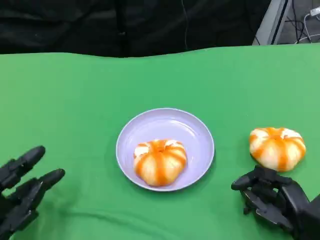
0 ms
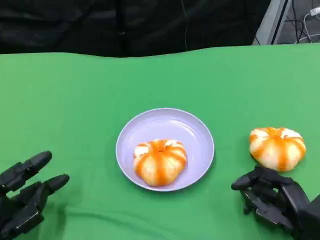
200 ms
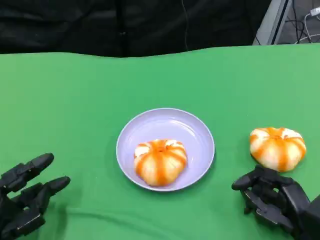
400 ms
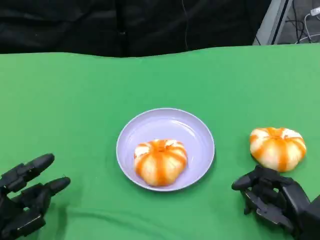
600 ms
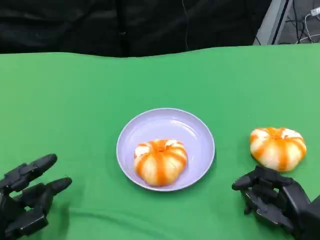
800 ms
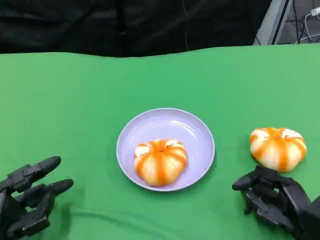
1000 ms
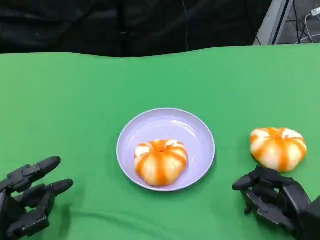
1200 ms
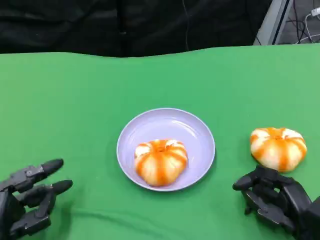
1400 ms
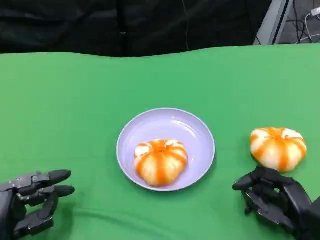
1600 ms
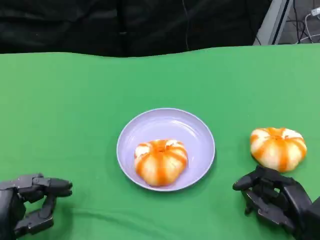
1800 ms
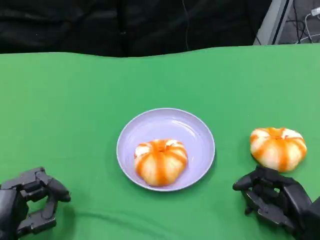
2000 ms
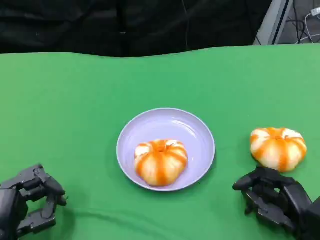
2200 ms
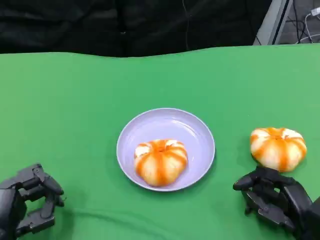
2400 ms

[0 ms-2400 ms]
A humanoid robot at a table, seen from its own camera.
Task of the whole recording: Grasp the bread from the table and place it into the plate.
0 ms to 2400 ms: The hands stay close to where they were, moving slightly.

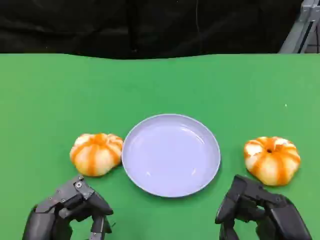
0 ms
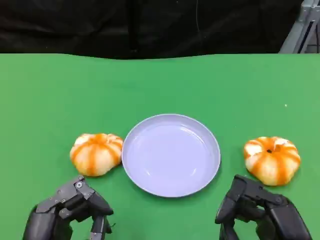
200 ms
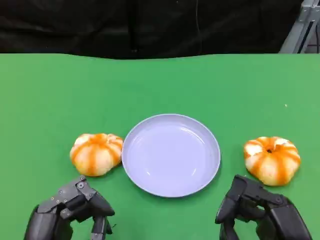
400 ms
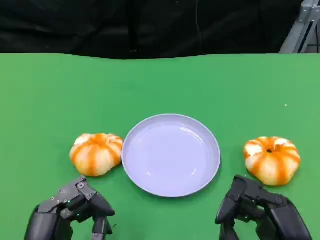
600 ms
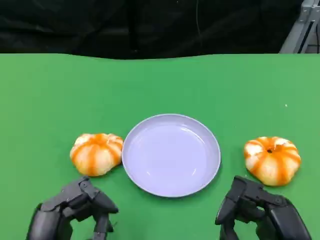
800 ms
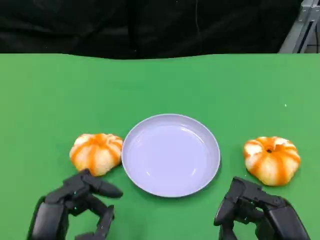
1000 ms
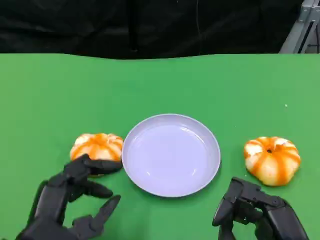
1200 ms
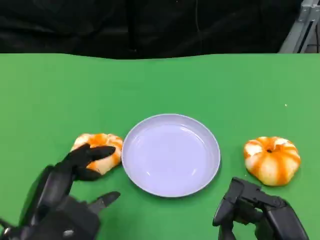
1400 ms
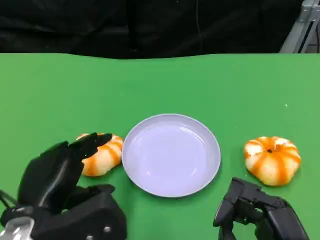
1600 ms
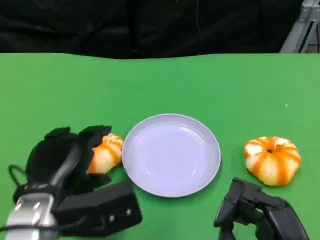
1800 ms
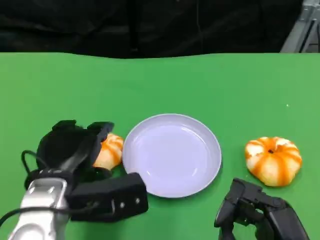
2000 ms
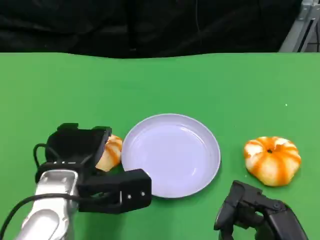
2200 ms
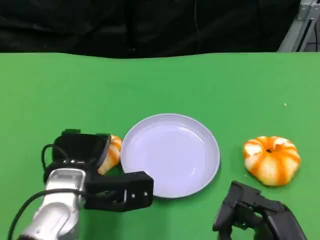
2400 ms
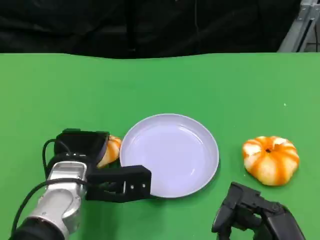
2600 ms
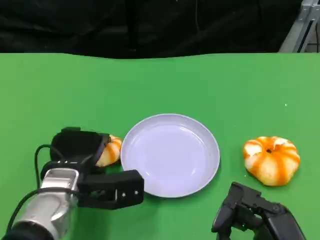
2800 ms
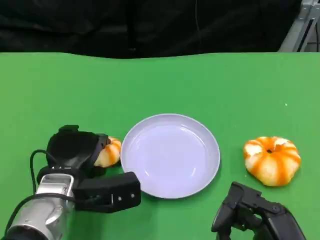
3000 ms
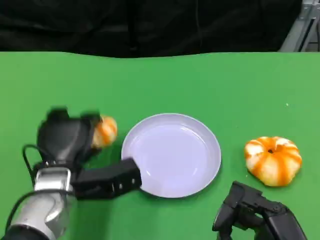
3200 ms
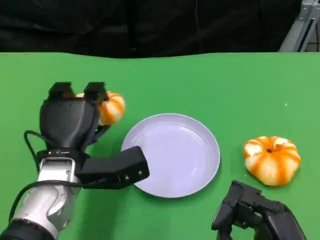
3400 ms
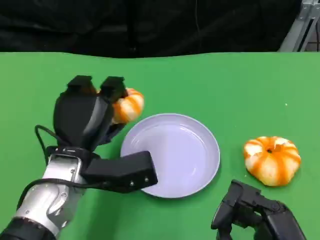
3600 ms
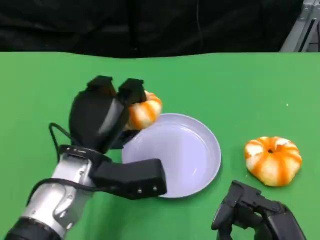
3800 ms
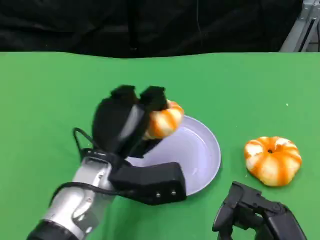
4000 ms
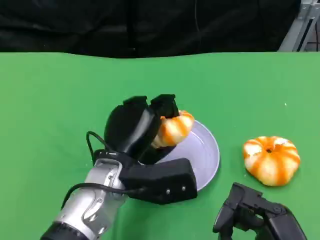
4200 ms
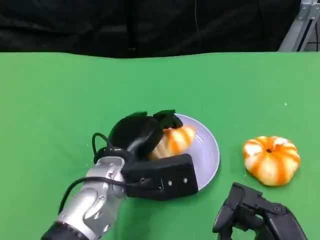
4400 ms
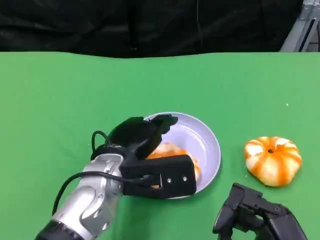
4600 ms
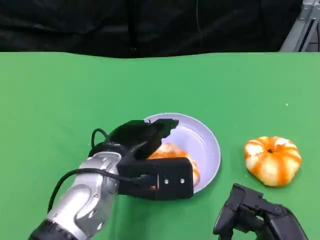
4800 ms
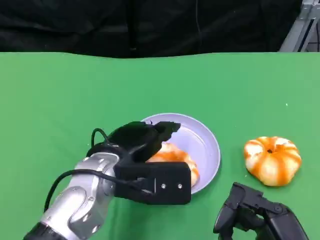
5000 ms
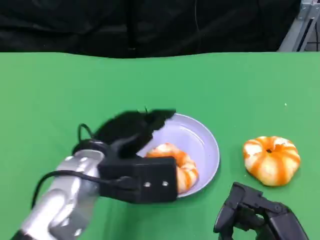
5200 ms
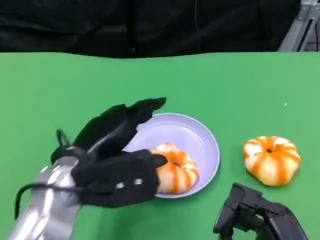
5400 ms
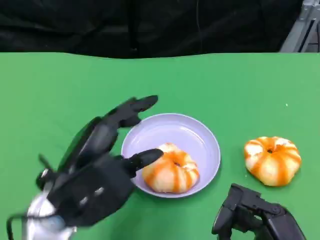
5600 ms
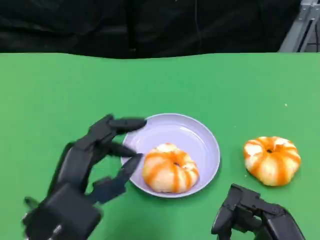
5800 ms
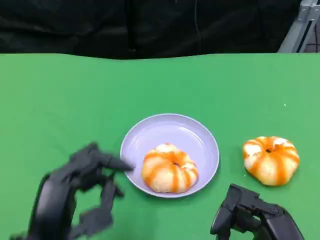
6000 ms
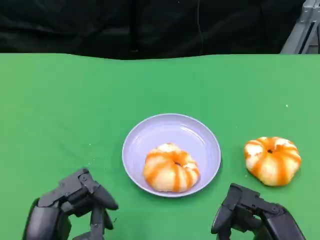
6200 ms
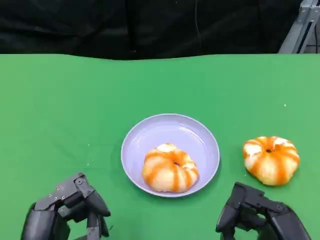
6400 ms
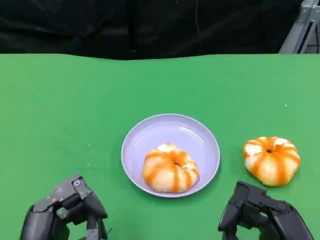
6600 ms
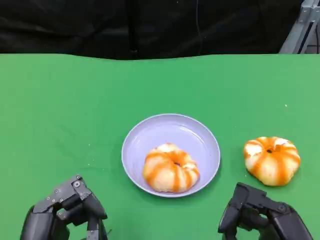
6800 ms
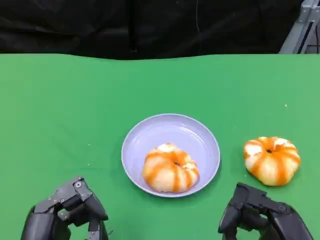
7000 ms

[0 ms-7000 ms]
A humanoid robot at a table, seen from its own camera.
Task of the whole recording: Grasp the bread from the table and place it into the plate.
0 ms to 1400 ms: The left hand shifts by about 5 cm.
1400 ms to 2800 ms: The left hand is displaced forward and downward by approximately 10 cm.
2800 ms to 4200 ms: The left hand is displaced to the right by about 10 cm.
4200 ms to 5600 ms: The left hand shifts some 10 cm to the left and backward.
5600 ms to 7000 ms: The left hand heads backward and downward, covering some 10 cm.

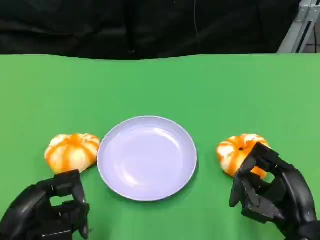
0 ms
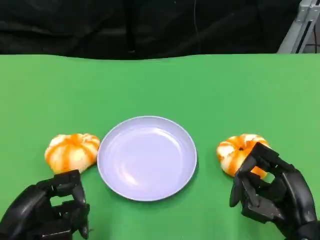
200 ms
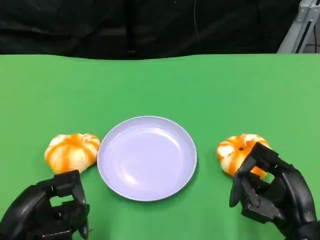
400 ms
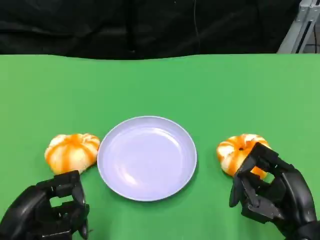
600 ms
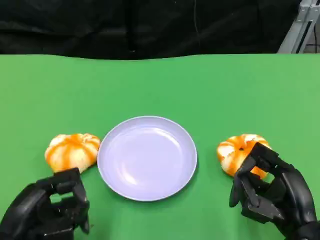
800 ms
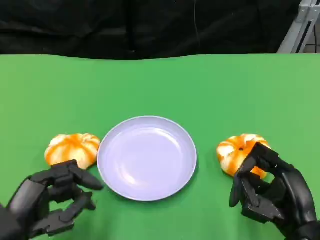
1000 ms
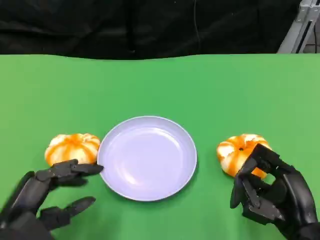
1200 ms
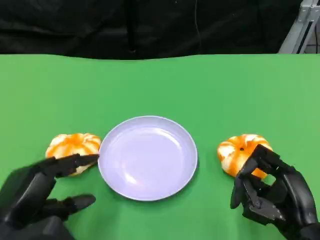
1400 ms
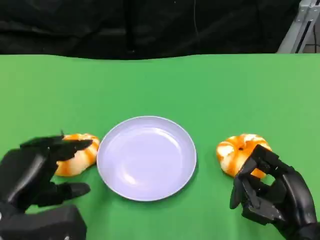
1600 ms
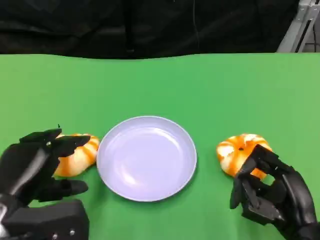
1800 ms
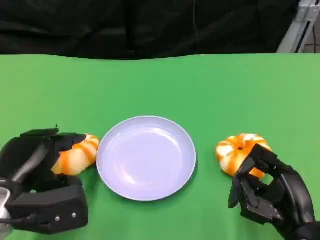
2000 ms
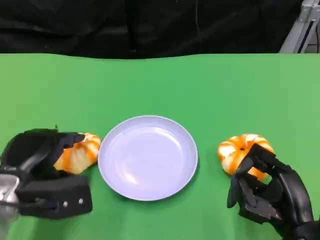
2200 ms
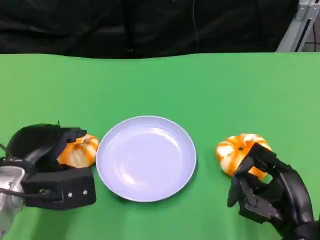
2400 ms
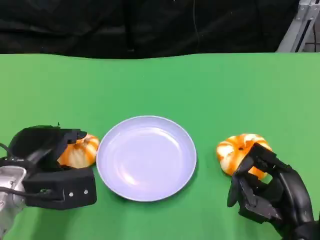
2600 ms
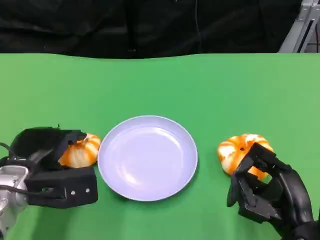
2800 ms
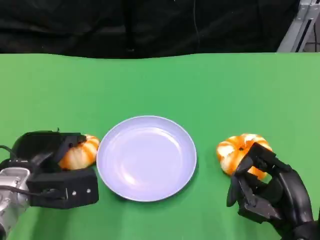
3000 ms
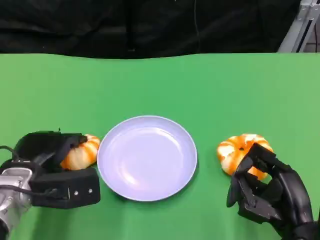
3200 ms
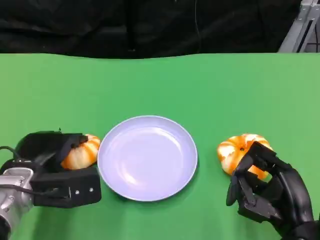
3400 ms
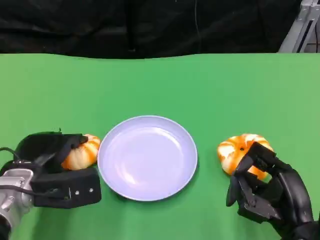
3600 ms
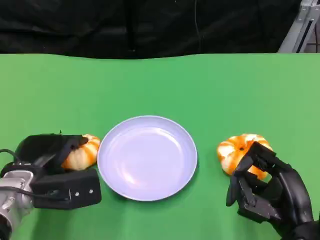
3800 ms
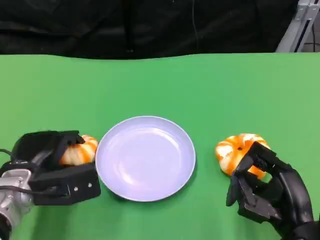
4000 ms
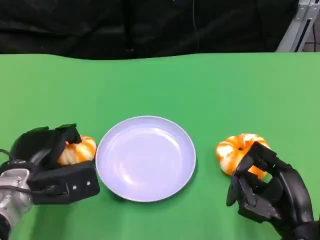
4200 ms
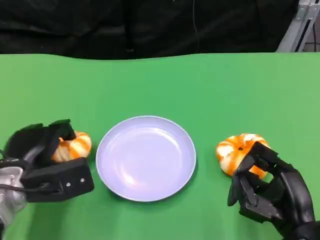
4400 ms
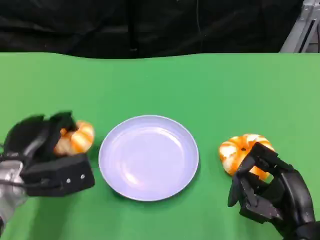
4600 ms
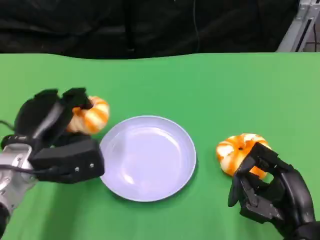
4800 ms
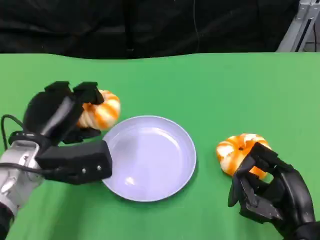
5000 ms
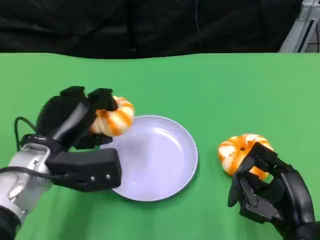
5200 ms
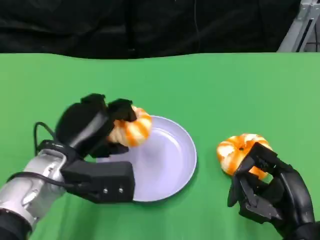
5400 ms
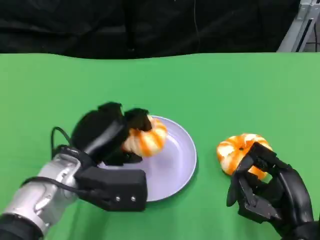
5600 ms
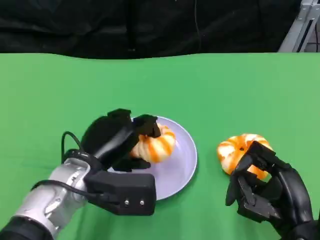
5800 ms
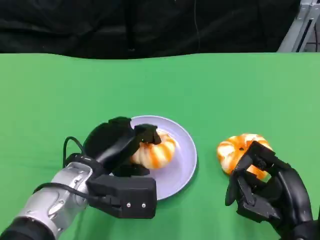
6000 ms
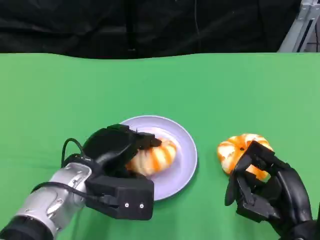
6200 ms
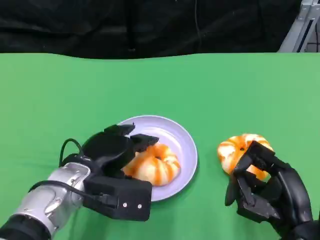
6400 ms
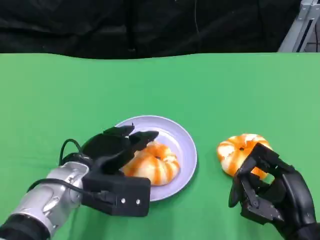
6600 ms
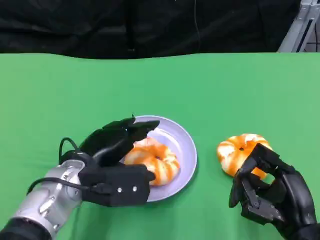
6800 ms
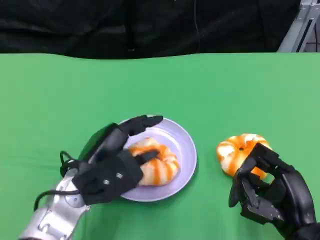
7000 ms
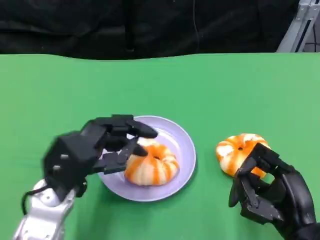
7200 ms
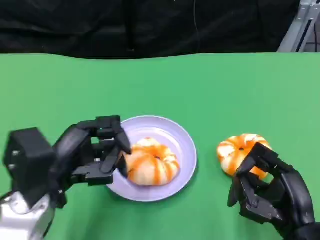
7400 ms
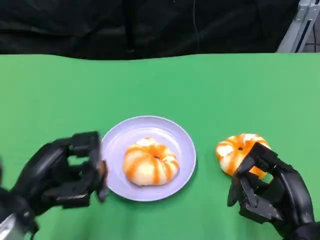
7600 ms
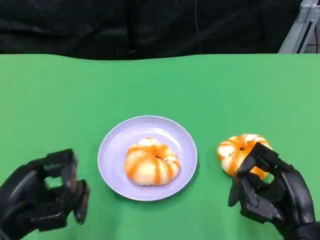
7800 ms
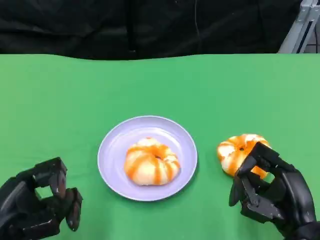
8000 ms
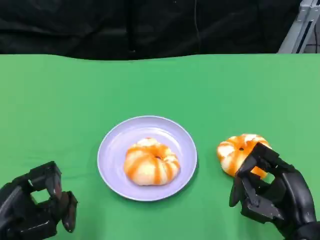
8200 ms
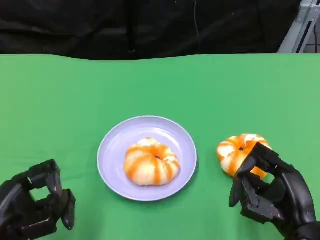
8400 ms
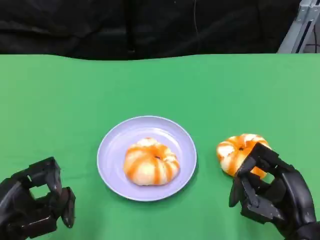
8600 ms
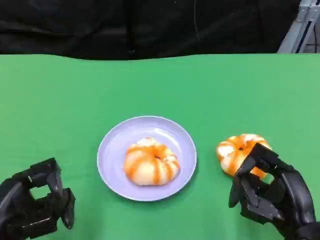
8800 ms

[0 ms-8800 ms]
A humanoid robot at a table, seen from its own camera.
Task of the whole recording: Grasp the bread from the table and place it into the plate.
1400 ms to 3000 ms: The left hand is displaced forward by about 10 cm.
3000 ms to 4400 ms: The hands make only small movements.
4400 ms to 5800 ms: The left hand travels to the right by some 10 cm.
5800 ms to 7400 ms: The left hand moves to the left, some 5 cm.
7400 ms to 8800 ms: The left hand heads backward and to the left, covering some 10 cm.

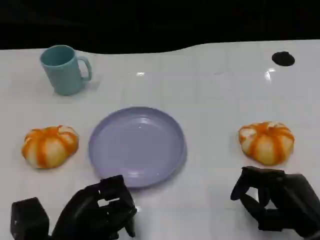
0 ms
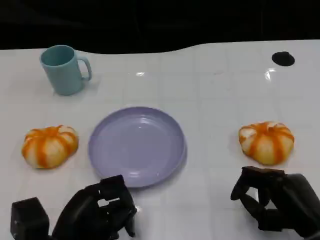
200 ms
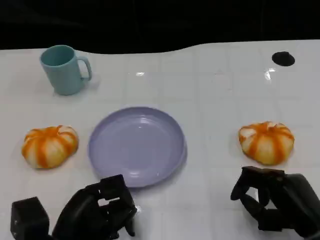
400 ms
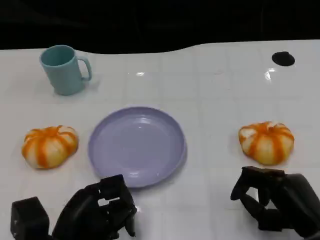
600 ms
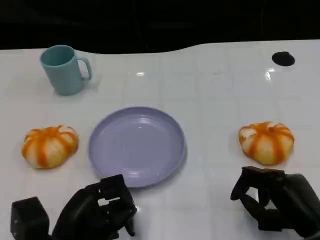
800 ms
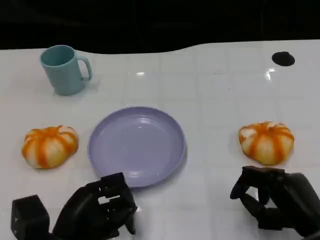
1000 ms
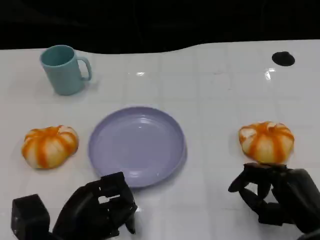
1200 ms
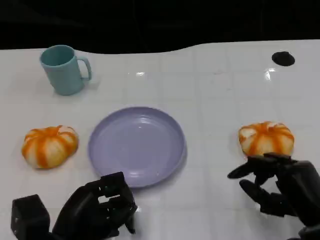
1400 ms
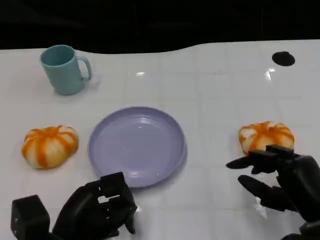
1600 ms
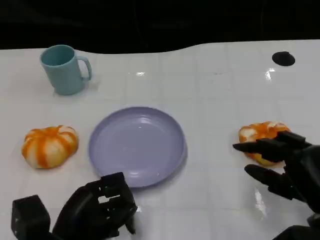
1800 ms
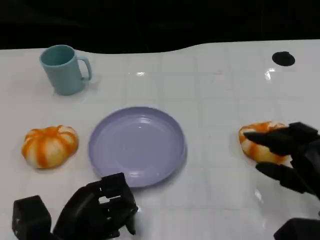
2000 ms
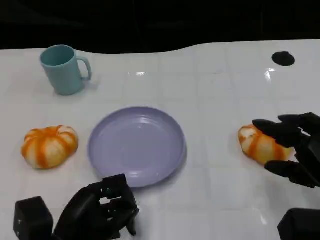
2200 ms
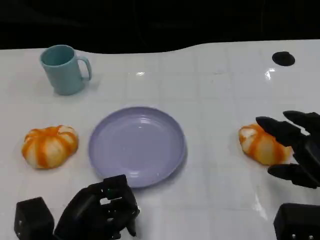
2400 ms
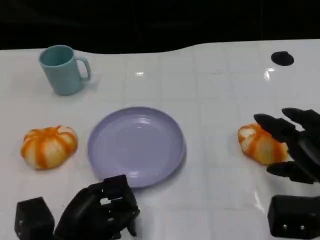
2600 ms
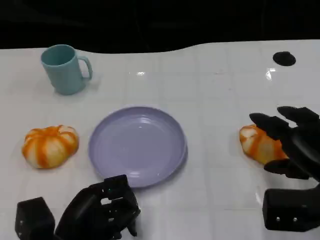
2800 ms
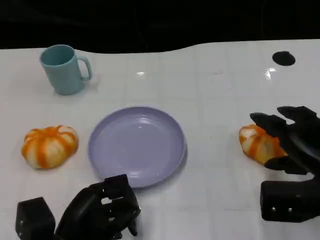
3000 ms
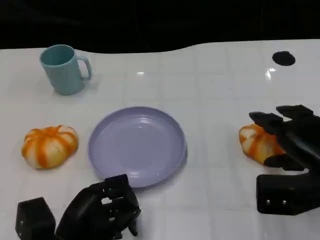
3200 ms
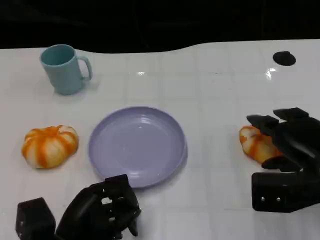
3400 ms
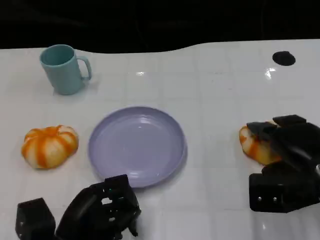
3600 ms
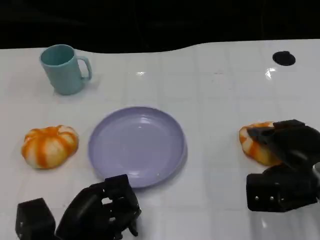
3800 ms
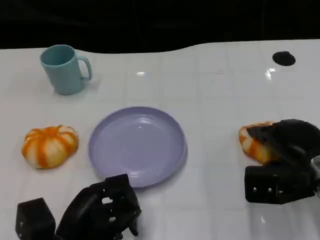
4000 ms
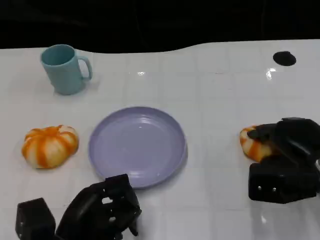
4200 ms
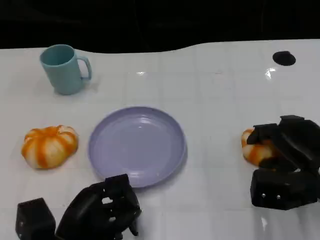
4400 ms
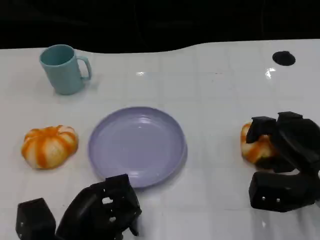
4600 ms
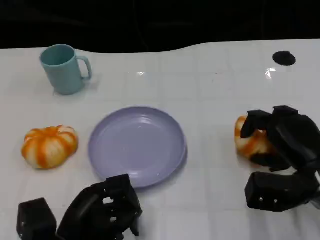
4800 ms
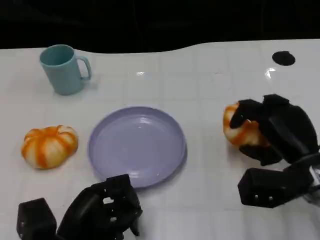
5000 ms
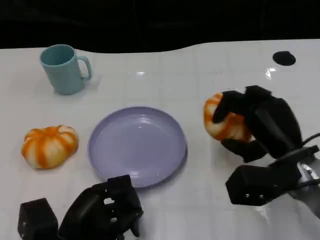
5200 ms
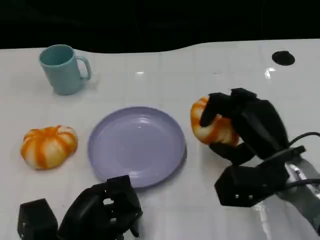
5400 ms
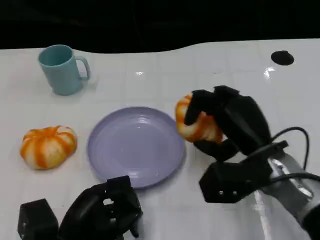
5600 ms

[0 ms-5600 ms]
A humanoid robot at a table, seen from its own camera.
Task of the whole recording: Grasp the bread from the table and place it into the plate.
0 ms to 1400 ms: The hands make only small movements.
1400 ms to 2800 ms: The right hand shifts by roughly 5 cm.
2800 ms to 4200 ms: The right hand ends up approximately 5 cm from where it was.
4200 ms to 5600 ms: The right hand heads to the left, covering approximately 10 cm.
